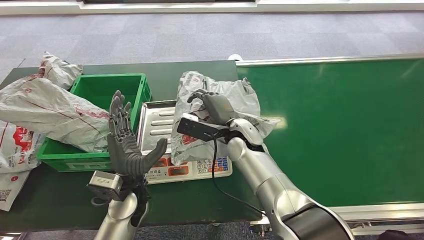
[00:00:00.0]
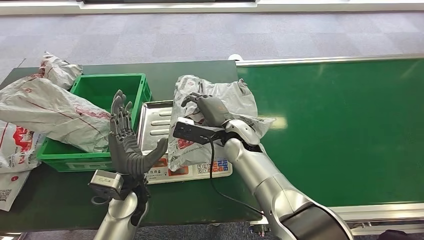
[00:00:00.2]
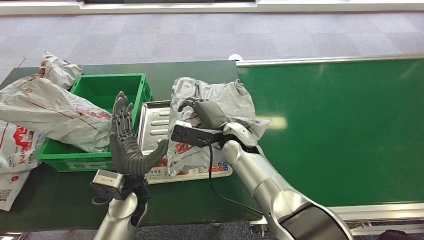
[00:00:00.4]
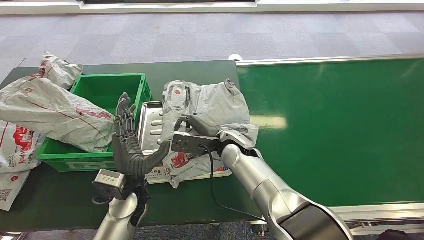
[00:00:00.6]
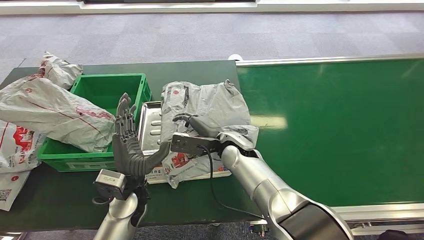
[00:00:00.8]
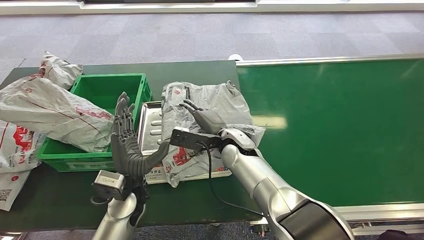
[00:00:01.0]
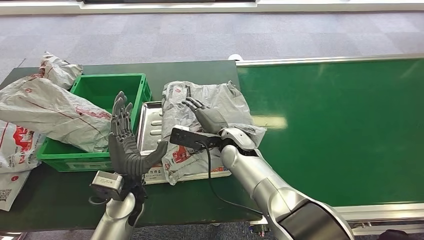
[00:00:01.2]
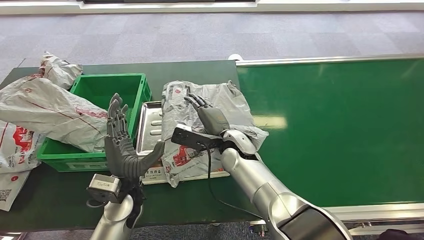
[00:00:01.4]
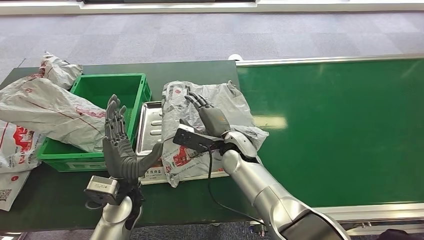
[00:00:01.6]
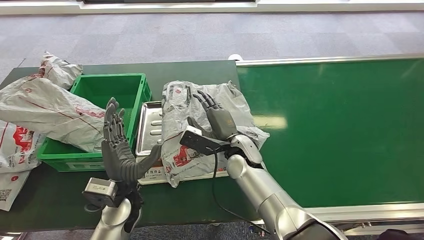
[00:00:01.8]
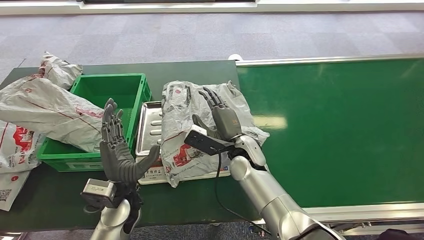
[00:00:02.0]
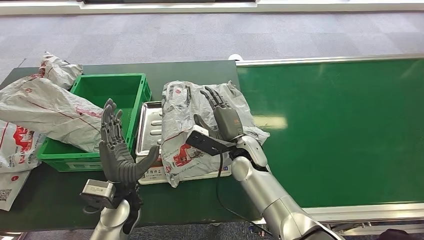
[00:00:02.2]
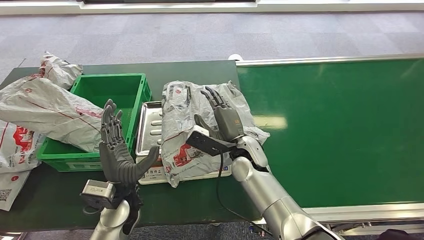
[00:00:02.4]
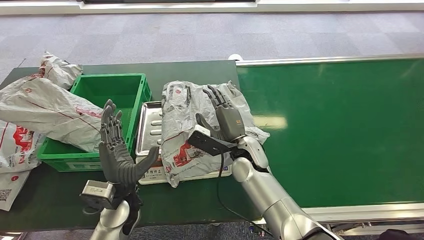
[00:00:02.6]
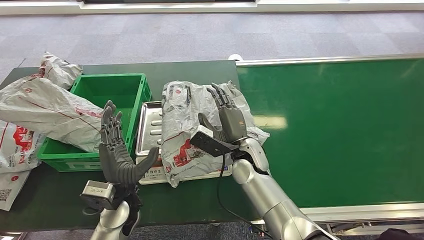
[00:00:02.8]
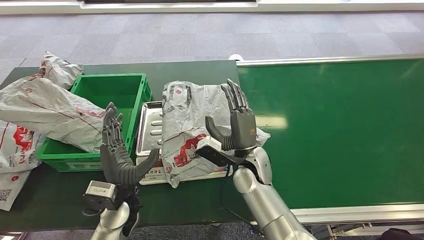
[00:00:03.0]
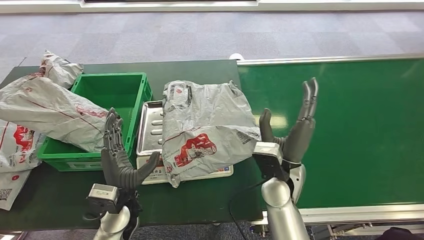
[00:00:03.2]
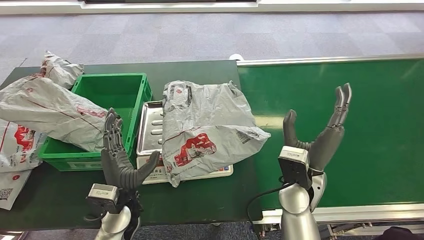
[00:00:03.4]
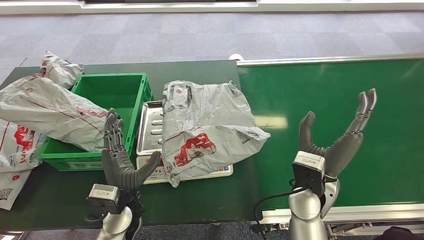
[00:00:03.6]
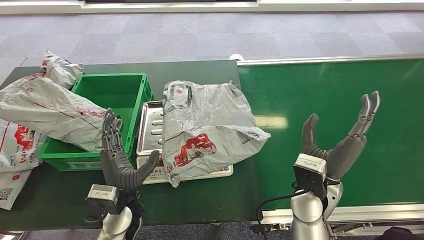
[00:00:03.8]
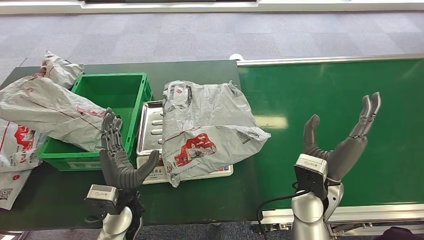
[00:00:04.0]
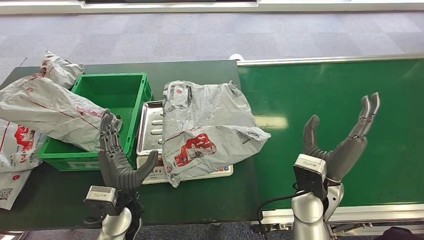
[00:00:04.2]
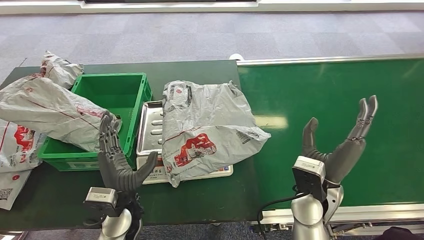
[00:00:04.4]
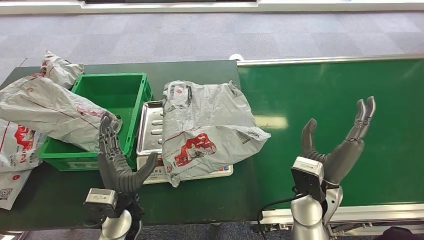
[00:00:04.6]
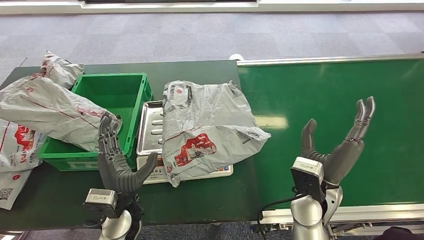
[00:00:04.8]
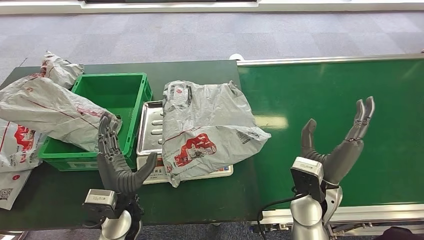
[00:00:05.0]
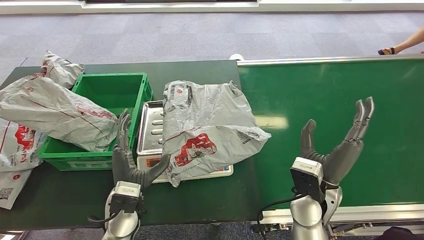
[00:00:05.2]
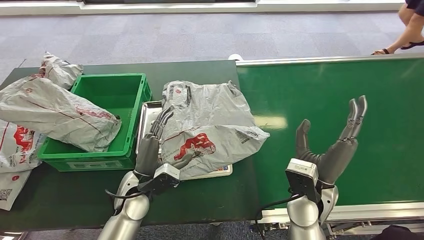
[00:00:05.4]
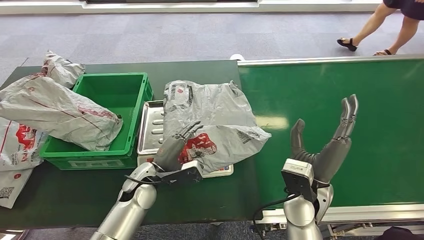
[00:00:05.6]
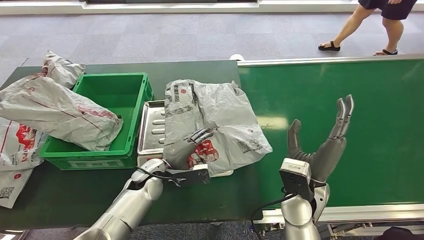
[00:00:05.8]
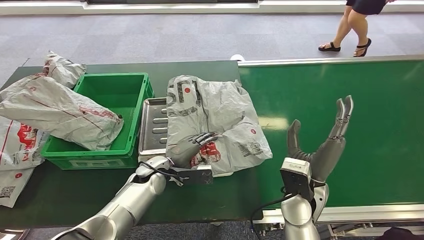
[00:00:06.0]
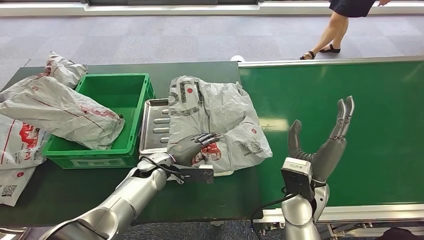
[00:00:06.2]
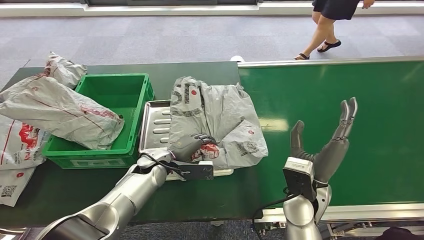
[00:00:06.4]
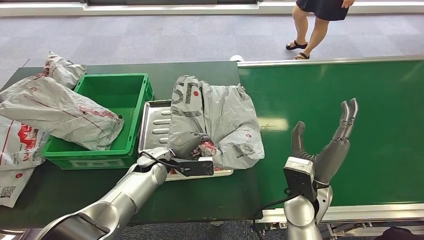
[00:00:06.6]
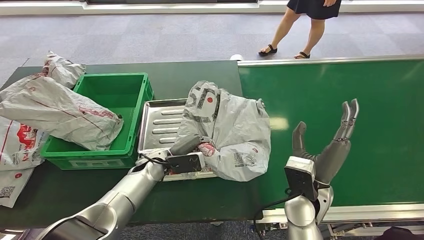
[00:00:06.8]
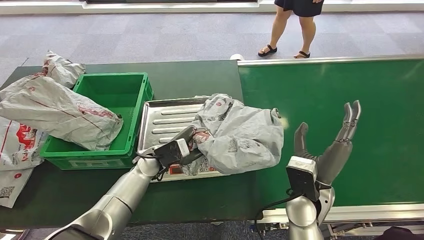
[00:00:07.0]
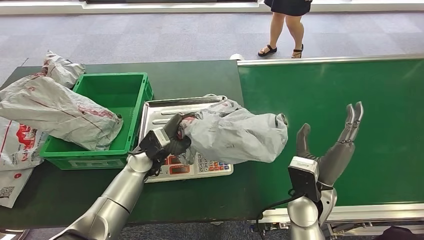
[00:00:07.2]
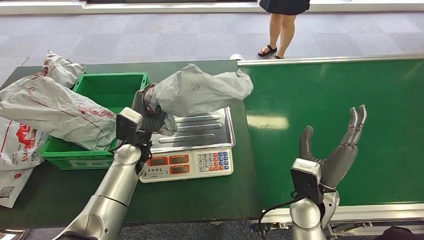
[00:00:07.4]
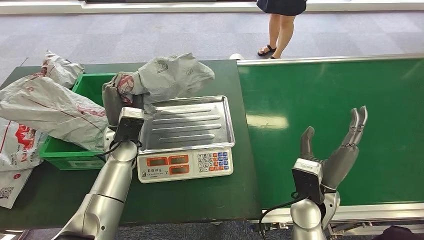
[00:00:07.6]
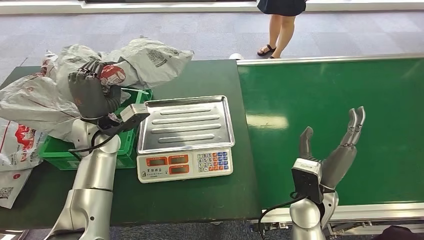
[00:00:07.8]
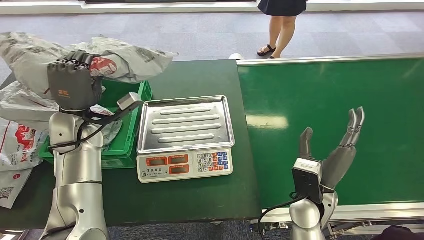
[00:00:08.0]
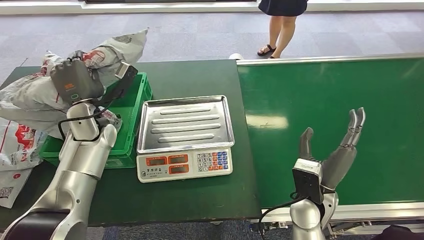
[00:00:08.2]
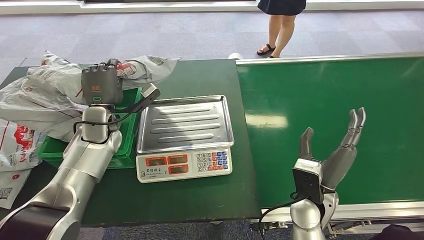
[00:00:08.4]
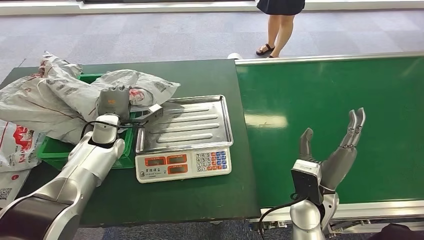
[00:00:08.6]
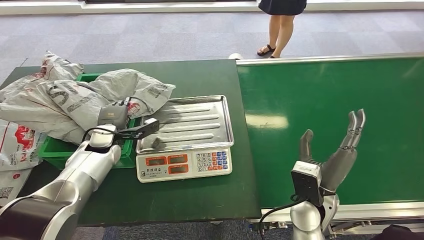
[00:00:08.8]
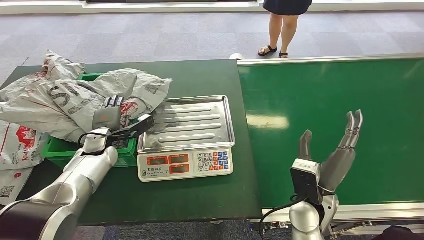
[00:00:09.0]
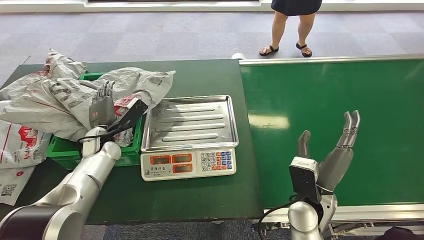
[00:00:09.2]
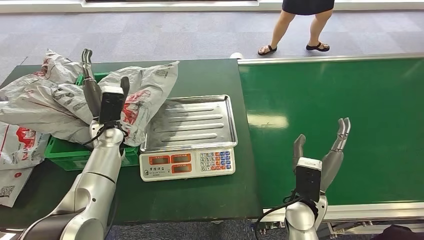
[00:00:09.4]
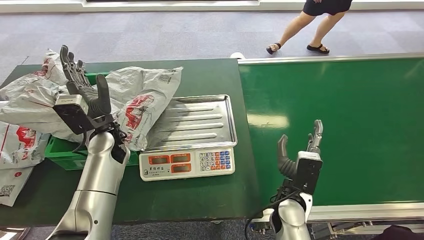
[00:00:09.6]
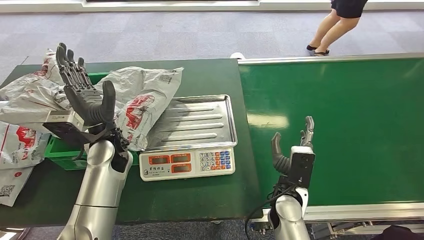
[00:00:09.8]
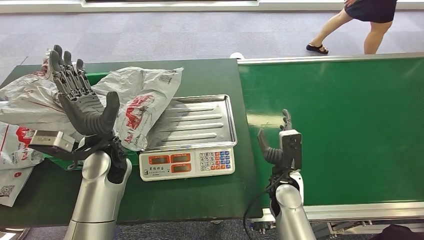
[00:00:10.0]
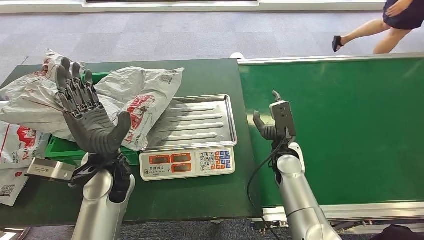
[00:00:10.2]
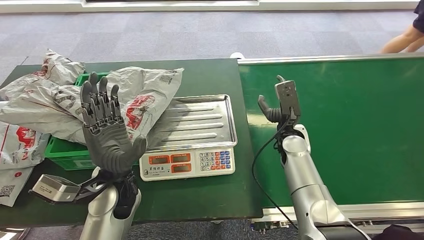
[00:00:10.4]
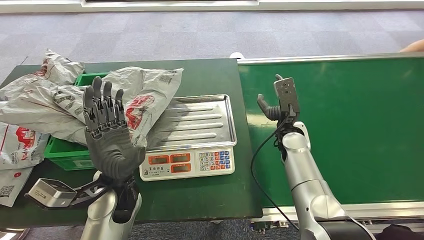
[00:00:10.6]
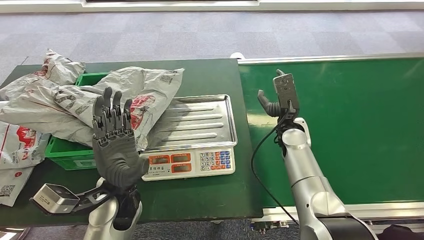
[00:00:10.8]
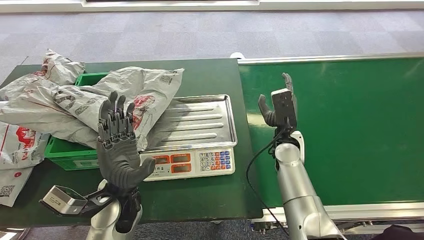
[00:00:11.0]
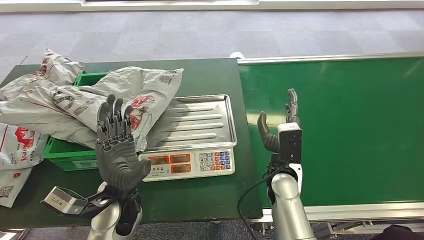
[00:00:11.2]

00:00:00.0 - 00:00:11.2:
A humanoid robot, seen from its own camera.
Step, 00:00:00.0 - 00:00:02.8: Place the package onto the inbound machine.
Step, 00:00:03.0 - 00:00:08.0: Pick up the package from the inbound machine.
Step, 00:00:08.4 - 00:00:11.0: Place the package into the parcel locker.
00:00:01.6 - 00:00:03.2: The right hand moves to the right and backward, some 10 cm.
00:00:03.2 - 00:00:04.8: The right hand goes some 5 cm to the right.
00:00:09.6 - 00:00:11.2: The left hand shifts approximately 15 cm backward and to the right. Meanwhile the right hand moves approximately 15 cm forward and comes back.
